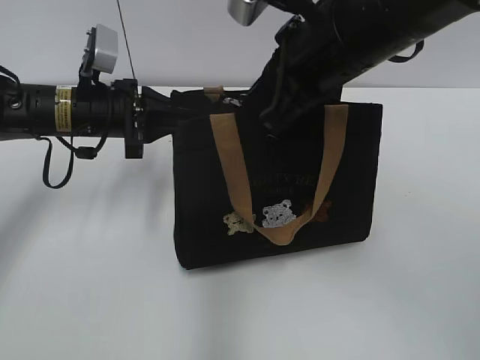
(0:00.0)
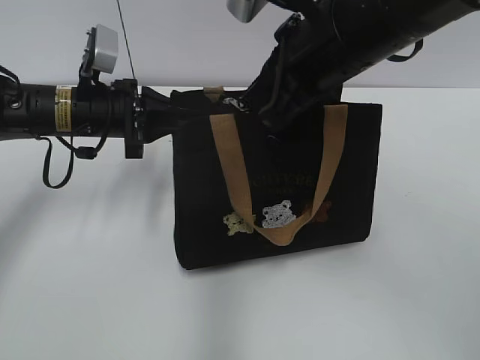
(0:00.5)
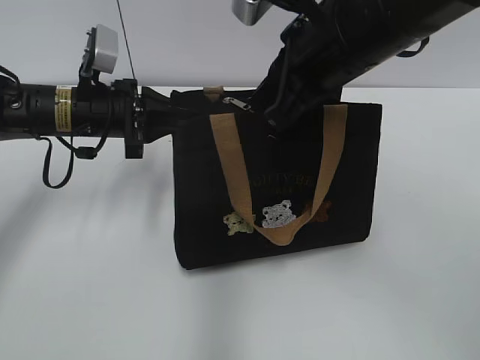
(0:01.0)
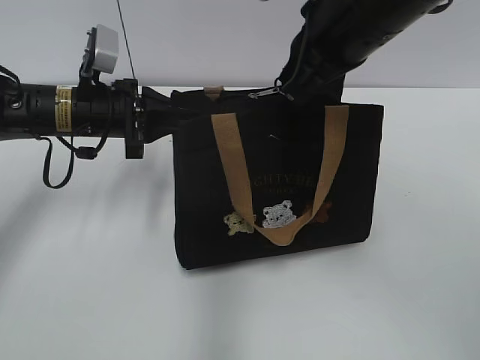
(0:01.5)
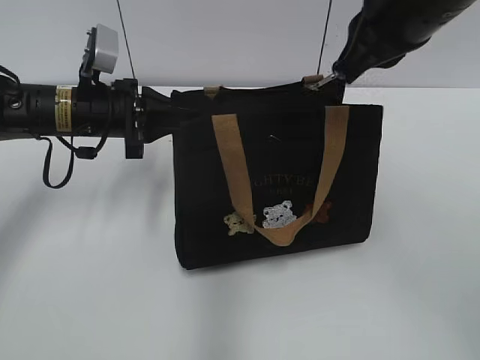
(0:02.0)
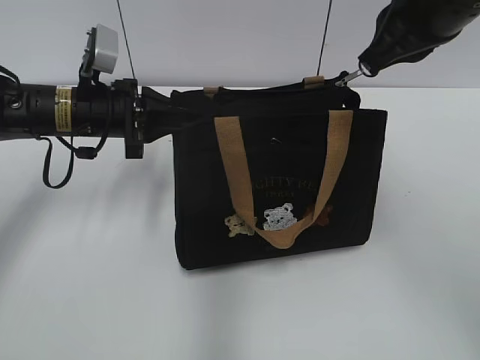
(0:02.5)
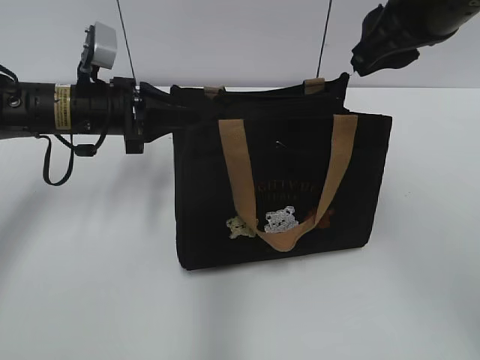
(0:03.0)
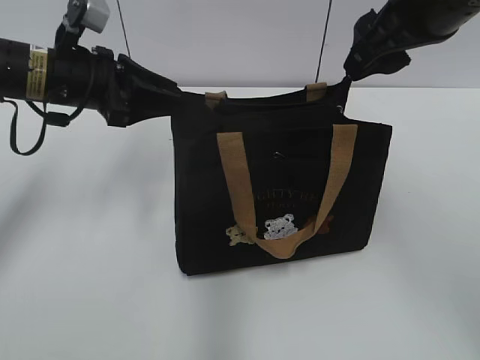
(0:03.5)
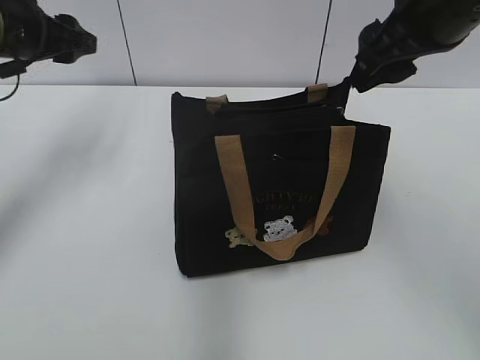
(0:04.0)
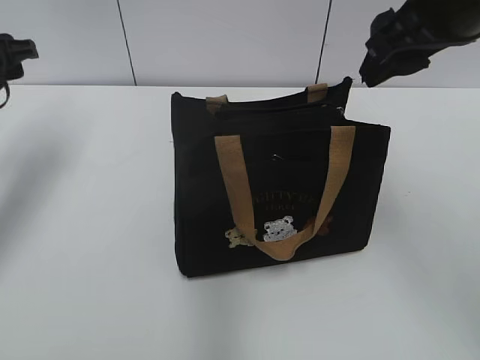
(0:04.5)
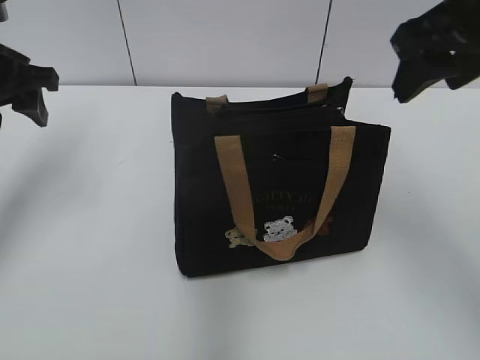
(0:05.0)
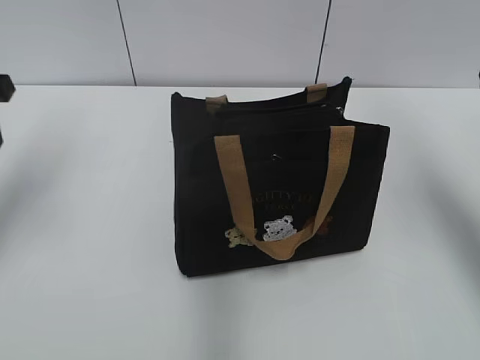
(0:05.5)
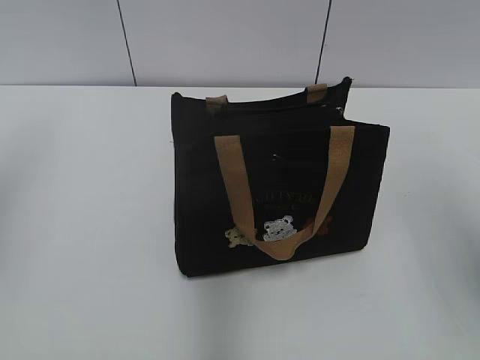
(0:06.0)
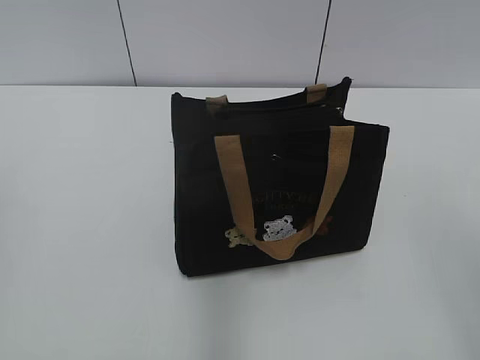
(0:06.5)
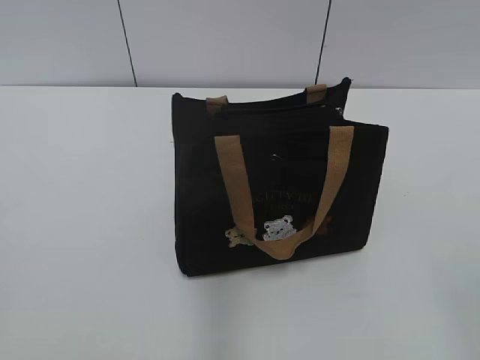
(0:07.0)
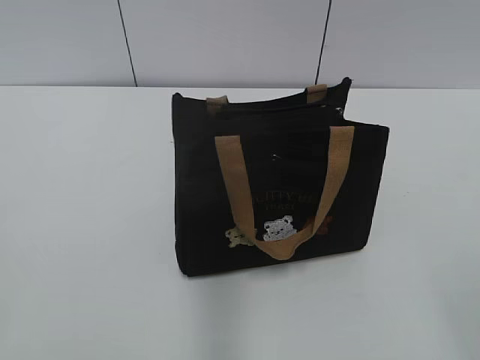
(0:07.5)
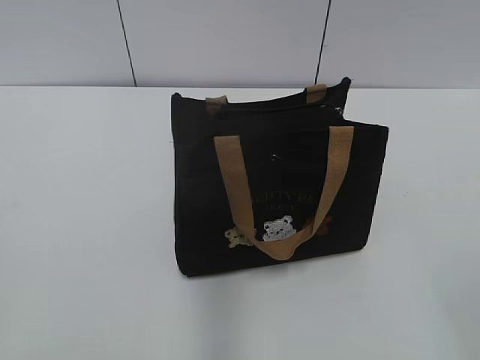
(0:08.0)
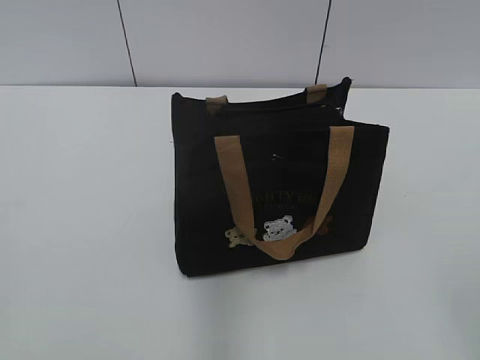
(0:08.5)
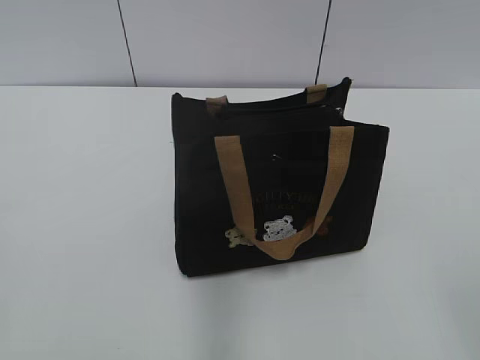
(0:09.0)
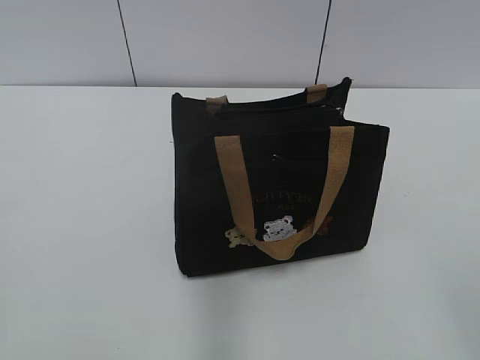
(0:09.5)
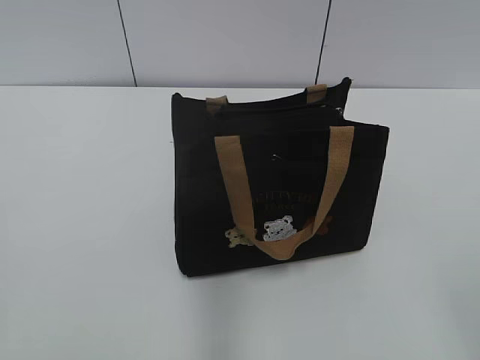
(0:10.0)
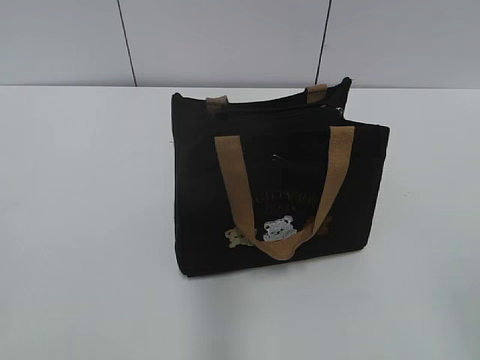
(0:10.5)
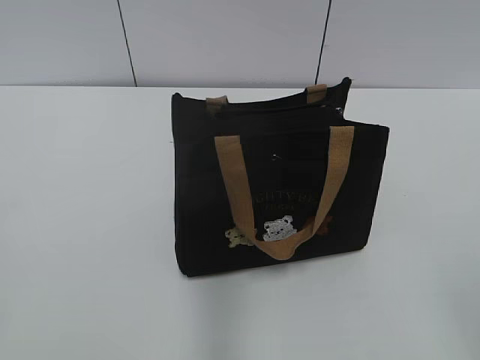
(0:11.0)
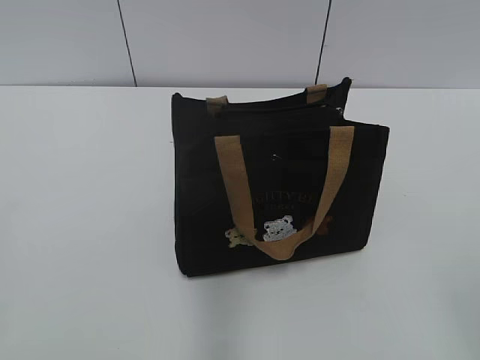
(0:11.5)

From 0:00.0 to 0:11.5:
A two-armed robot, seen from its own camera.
Step, from 0:00.0 to 0:02.5: Pull open the zipper with your right hand.
Step, from 0:03.0 to 0:03.5: Hold the bag with your left hand.
From 0:00.0 to 0:02.0: The right gripper moves to the right, about 5 cm.
From 0:02.0 to 0:04.0: The left gripper is displaced upward and to the left by approximately 10 cm, and opens up. The right gripper opens.
From 0:04.0 to 0:06.0: The left gripper moves backward and upward, some 20 cm; the right gripper shifts some 15 cm backward and to the right.
From 0:06.0 to 0:07.5: The right gripper travels backward by roughly 20 cm.
